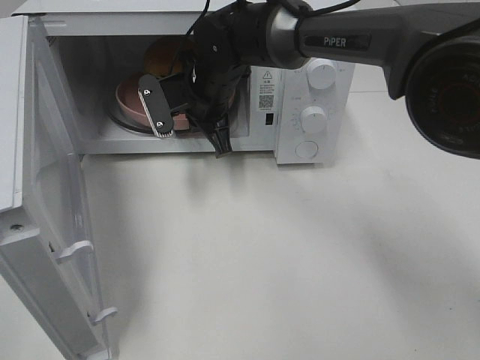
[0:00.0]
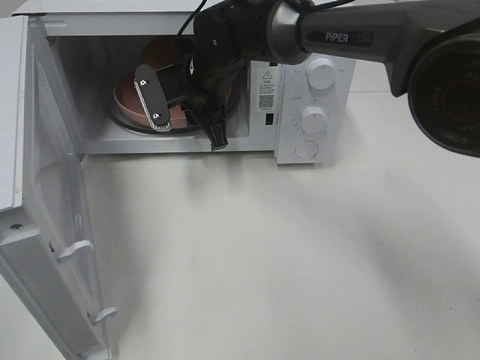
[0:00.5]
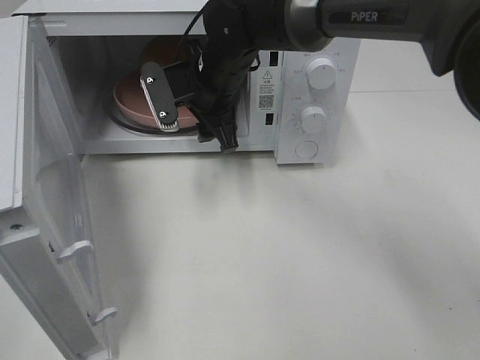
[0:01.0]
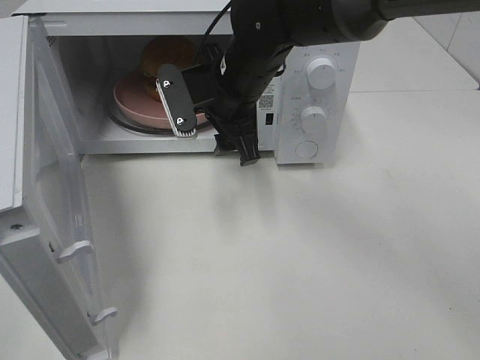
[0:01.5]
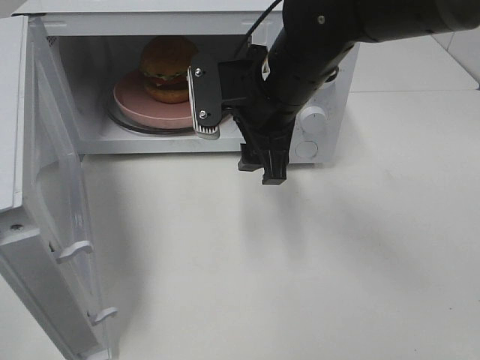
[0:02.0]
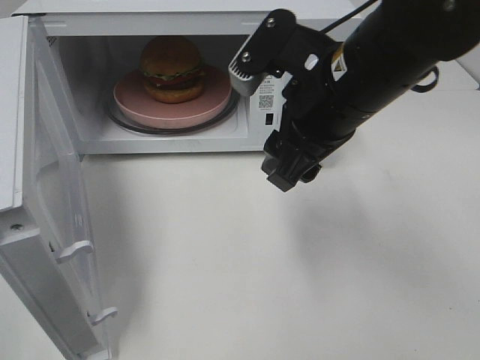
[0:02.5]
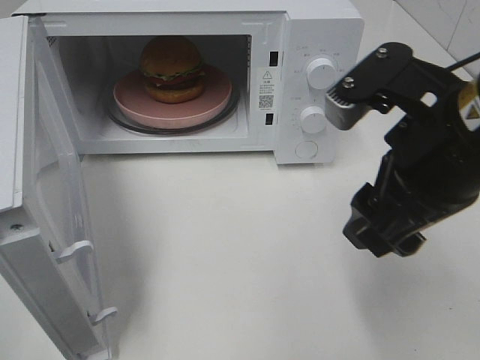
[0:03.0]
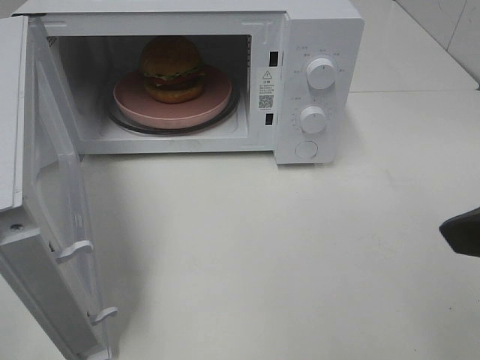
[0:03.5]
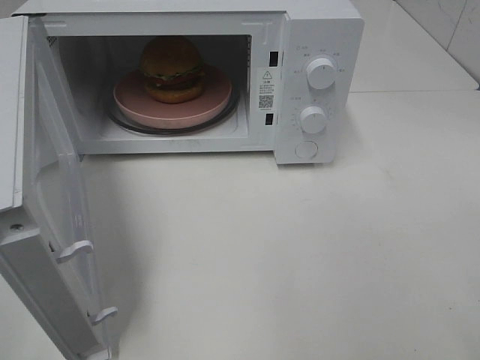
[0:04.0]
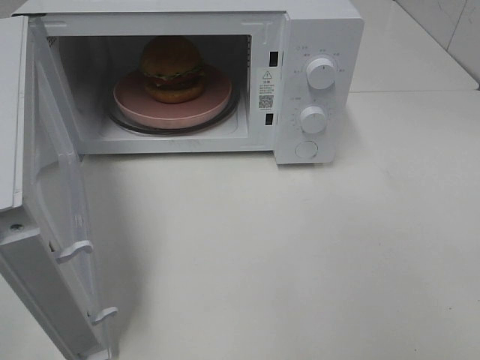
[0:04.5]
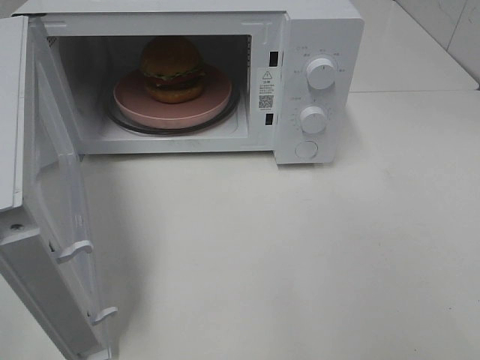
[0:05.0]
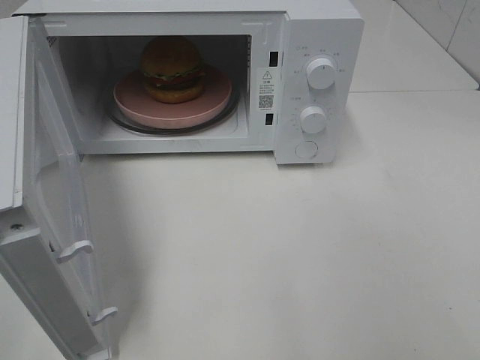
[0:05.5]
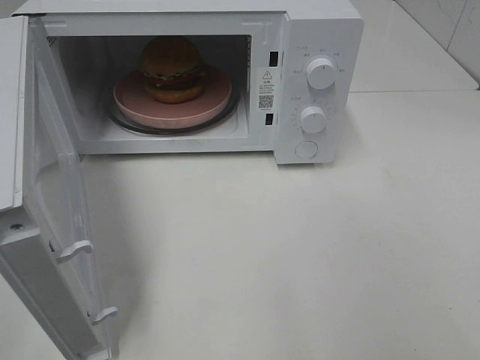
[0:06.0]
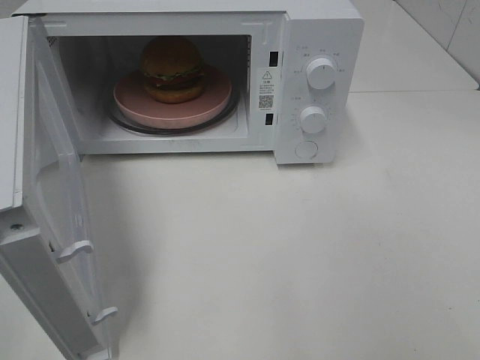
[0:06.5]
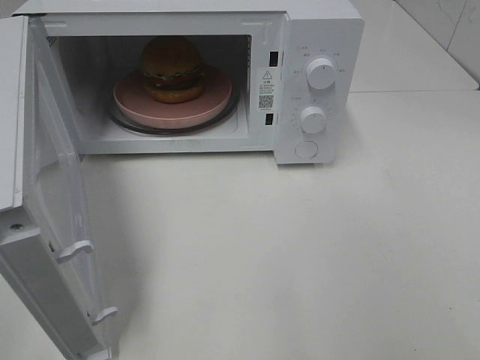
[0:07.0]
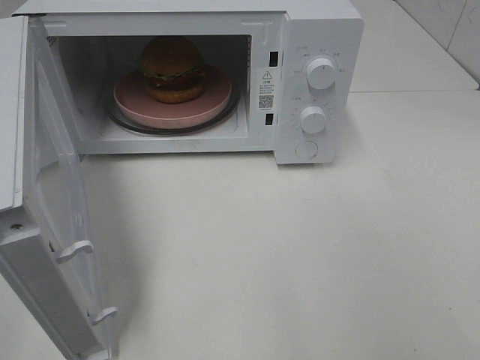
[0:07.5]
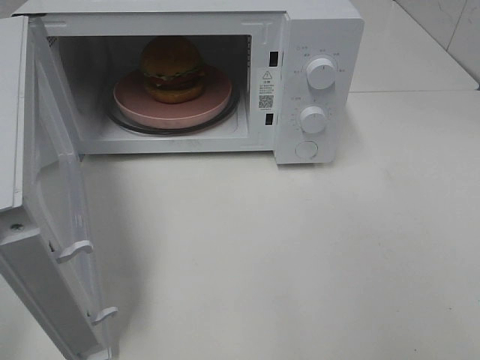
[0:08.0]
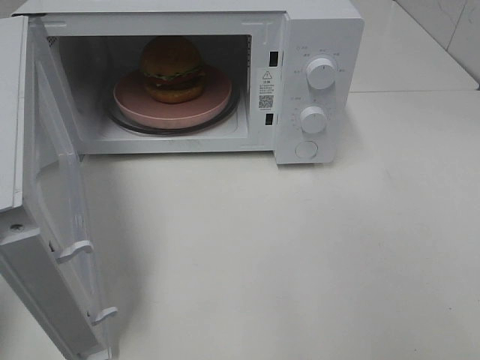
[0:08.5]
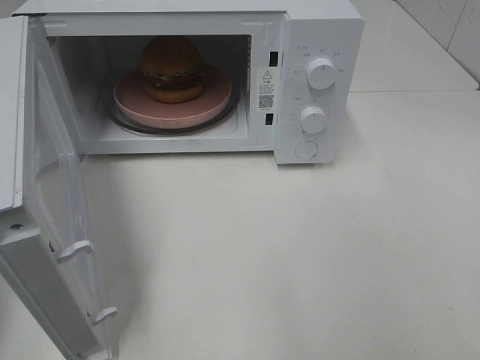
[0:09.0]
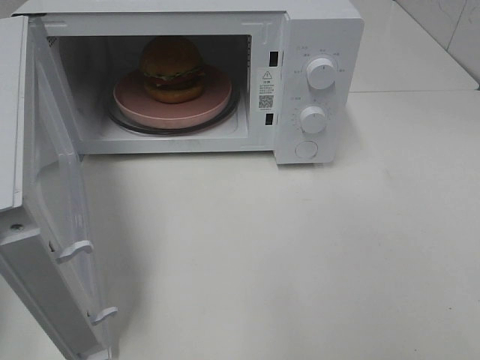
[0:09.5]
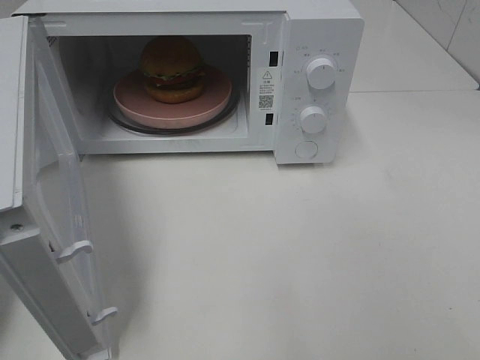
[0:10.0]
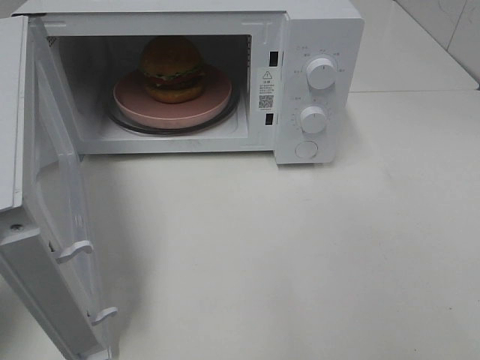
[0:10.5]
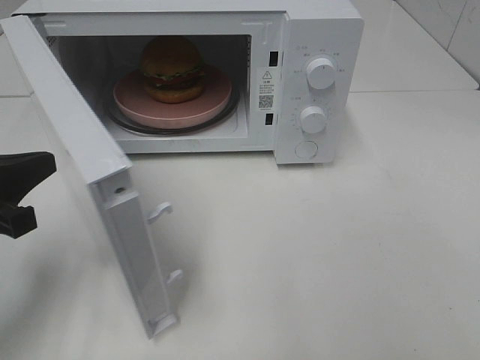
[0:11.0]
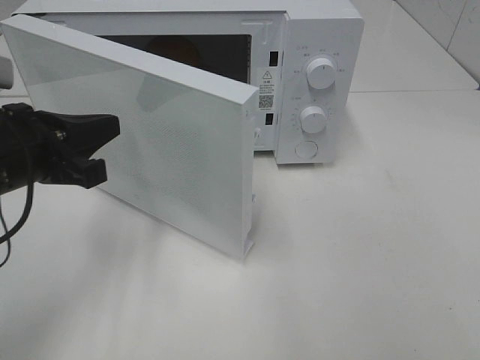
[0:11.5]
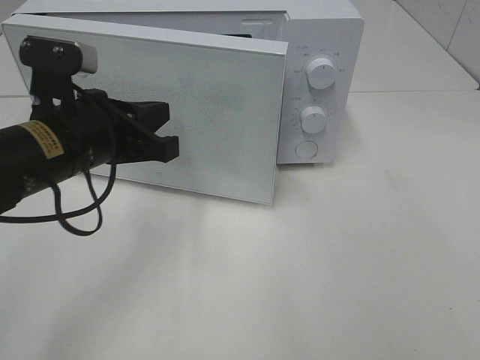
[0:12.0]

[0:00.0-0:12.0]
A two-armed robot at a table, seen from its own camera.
Task of the whole recording: Heat the burger.
0:00.0 to 0:02.0: The right gripper heads backward, to the right and upward, covering about 15 cm, and opens.
0:02.0 to 0:04.0: The right gripper heads backward, to the right and upward, covering about 35 cm.
0:10.0 to 0:12.0: The left gripper travels to the right and forward by some 20 cm.

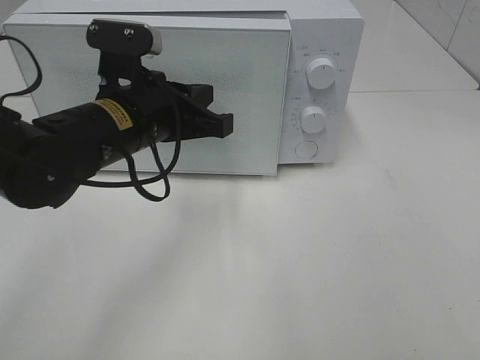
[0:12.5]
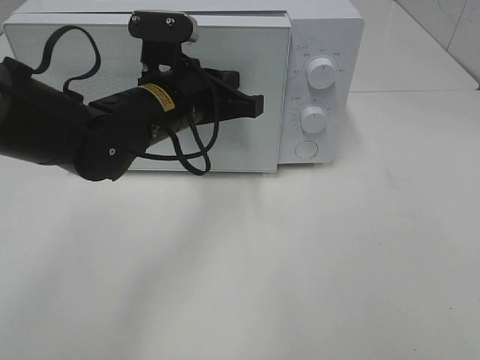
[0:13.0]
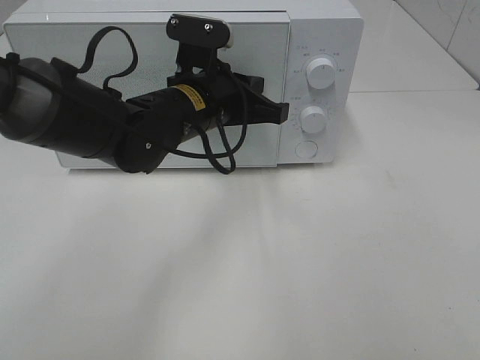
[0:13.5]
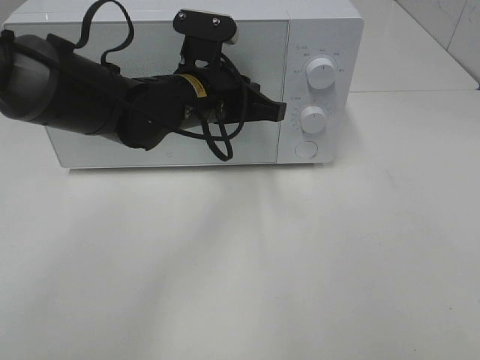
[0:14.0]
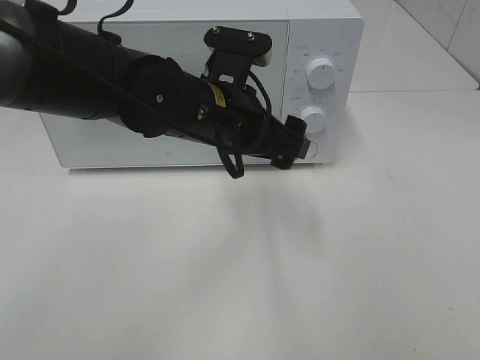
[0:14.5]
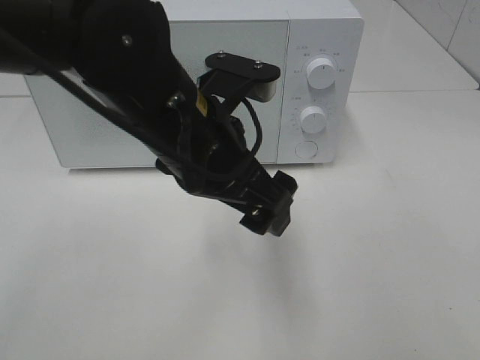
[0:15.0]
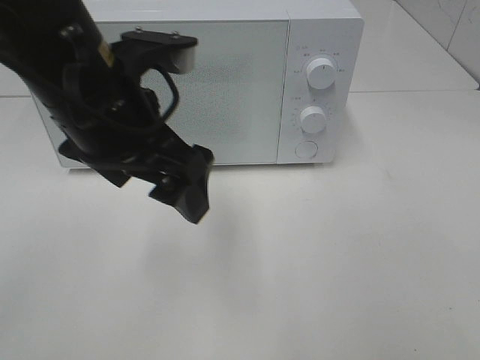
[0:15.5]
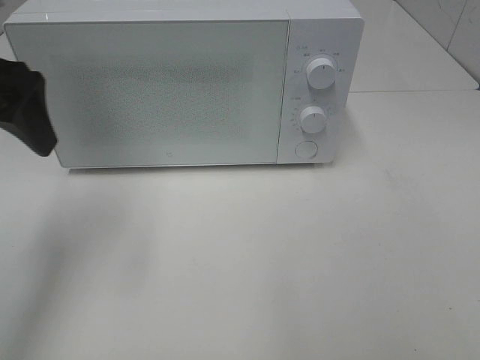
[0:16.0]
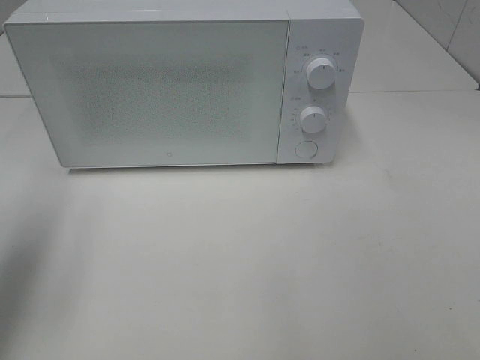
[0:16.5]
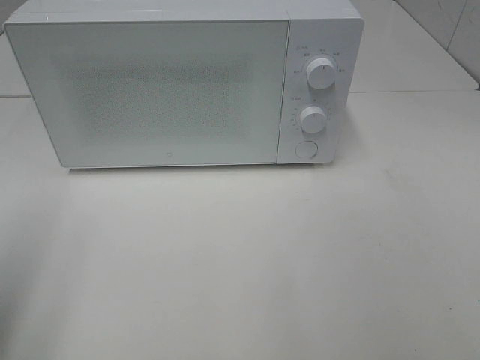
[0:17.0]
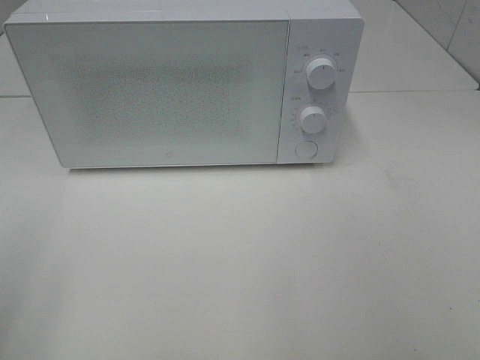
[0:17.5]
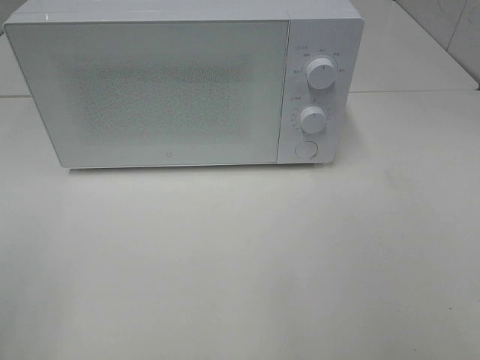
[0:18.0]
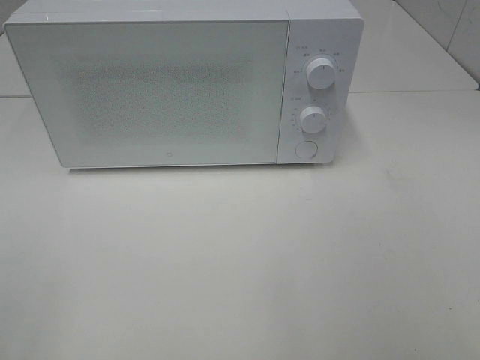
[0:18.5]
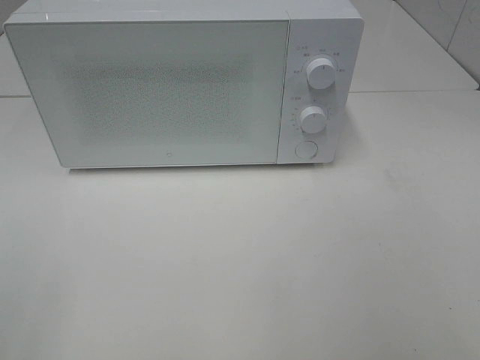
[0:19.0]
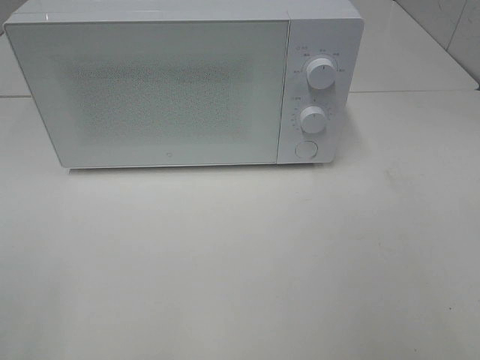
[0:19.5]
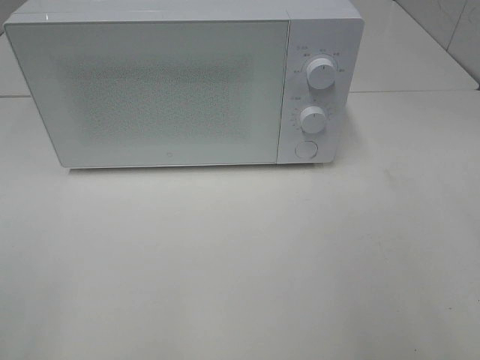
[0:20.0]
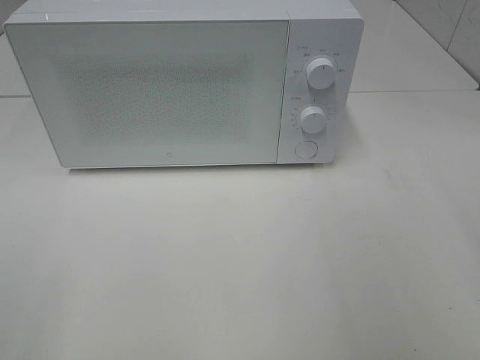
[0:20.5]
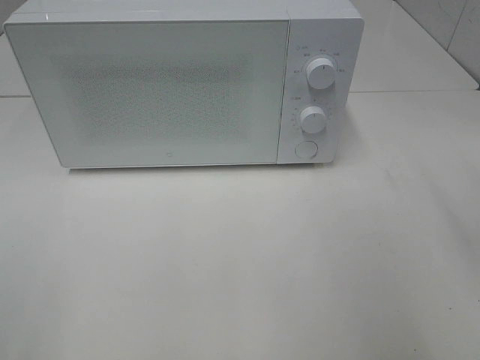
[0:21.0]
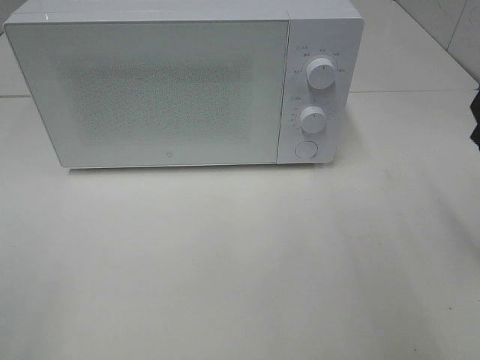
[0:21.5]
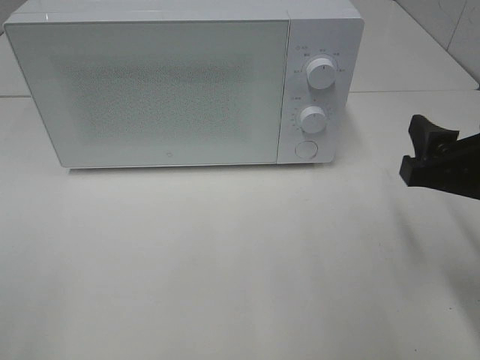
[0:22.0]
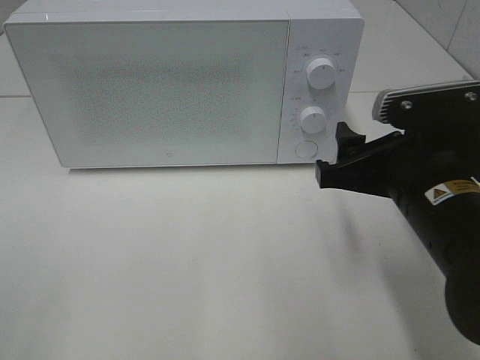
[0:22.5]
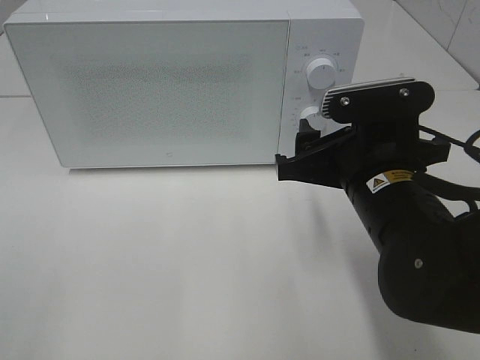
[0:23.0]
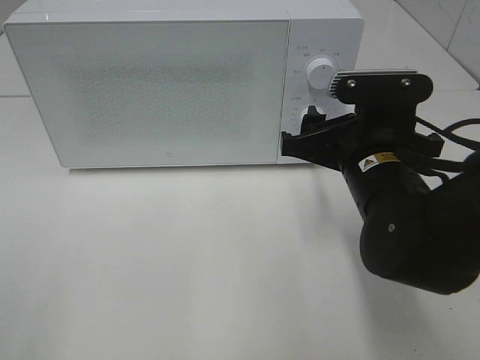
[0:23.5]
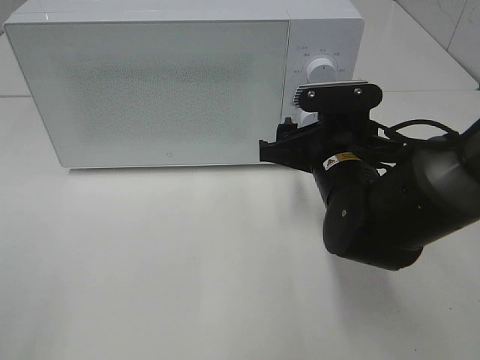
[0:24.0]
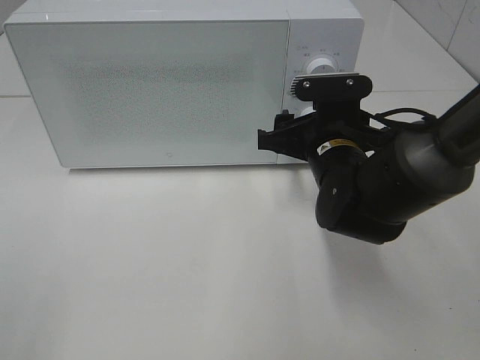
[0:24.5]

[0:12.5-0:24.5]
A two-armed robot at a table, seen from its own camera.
Task of the whole recording: Heat the burger.
0:12.5 to 0:14.5: The left gripper is displaced to the right by some 10 cm, and opens its fingers.
0:14.5 to 0:16.5: The left gripper travels to the left by approximately 30 cm.
0:16.5 to 0:18.5: The left gripper travels backward by roughly 20 cm.
0:20.5 to 0:22.5: The right gripper shifts some 20 cm to the left, downward and forward.
0:22.5 to 0:24.5: The right gripper goes roughly 15 cm forward and downward.

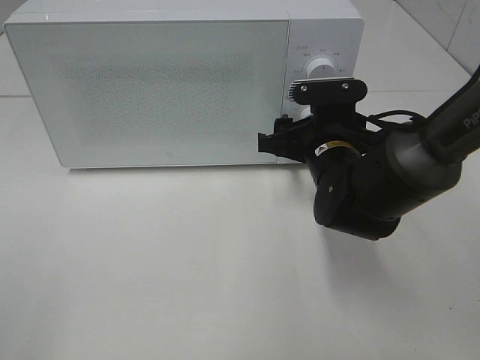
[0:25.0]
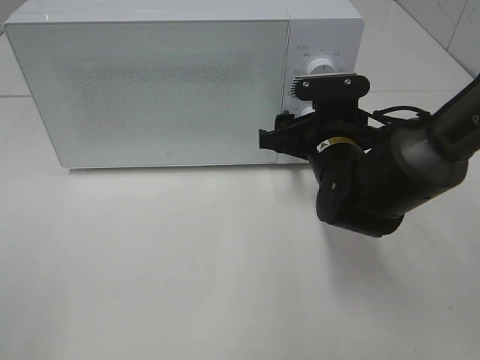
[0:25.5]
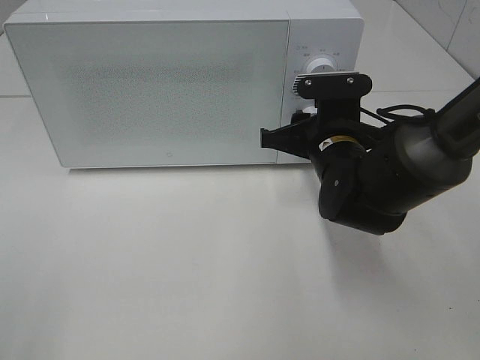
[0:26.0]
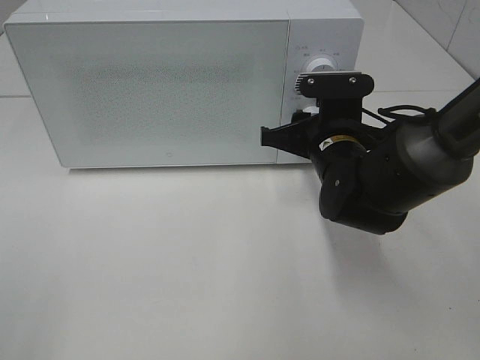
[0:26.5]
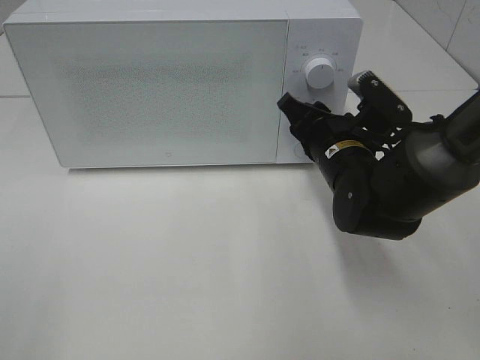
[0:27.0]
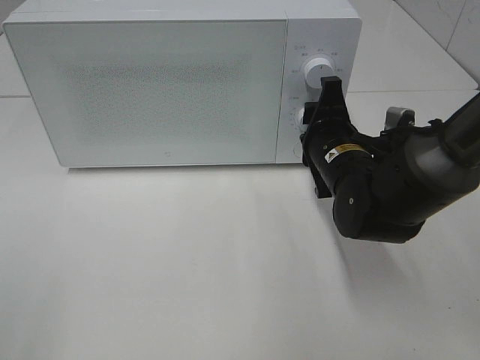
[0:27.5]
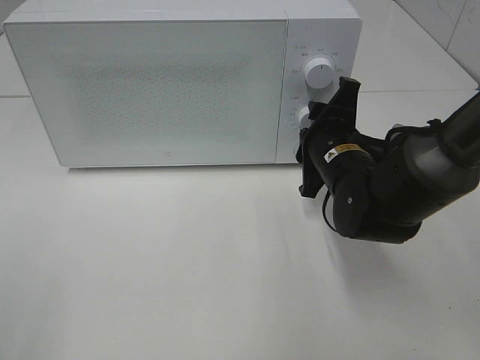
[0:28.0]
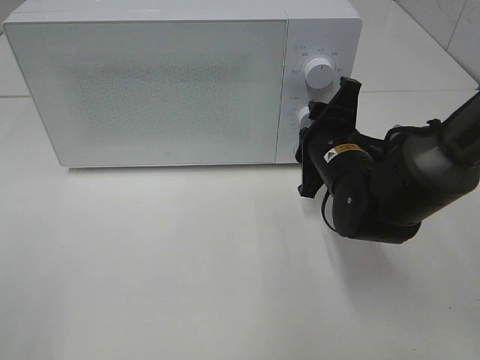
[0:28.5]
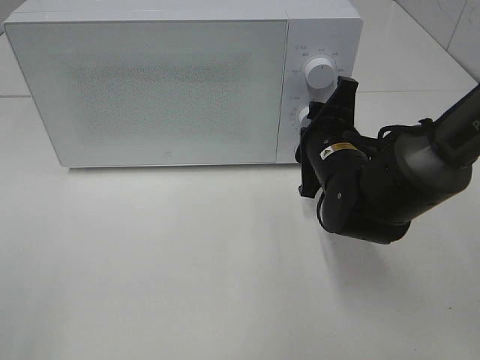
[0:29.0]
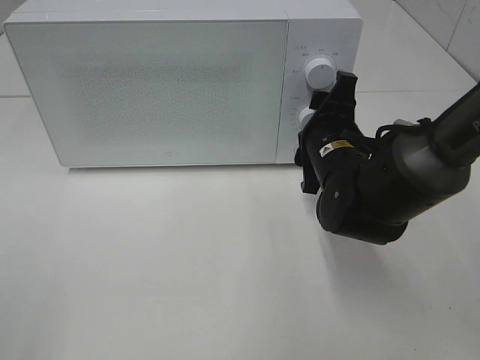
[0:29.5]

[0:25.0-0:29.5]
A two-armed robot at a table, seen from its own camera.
Task of the whole recording: Heat the burger.
0:25.0 to 0:27.0: The right gripper closes its fingers.
